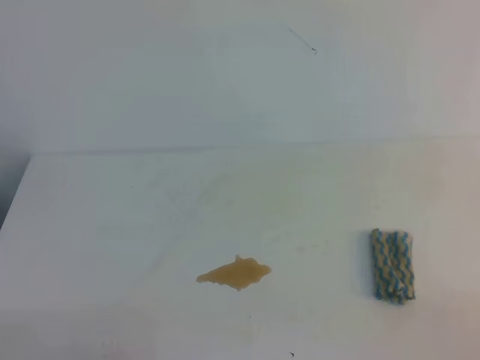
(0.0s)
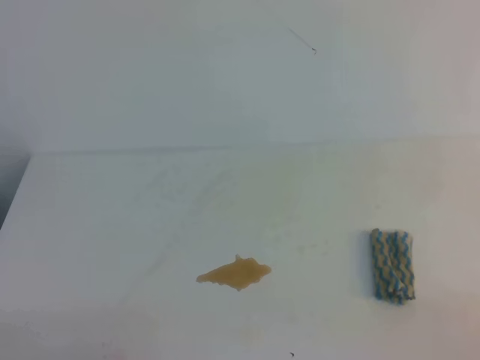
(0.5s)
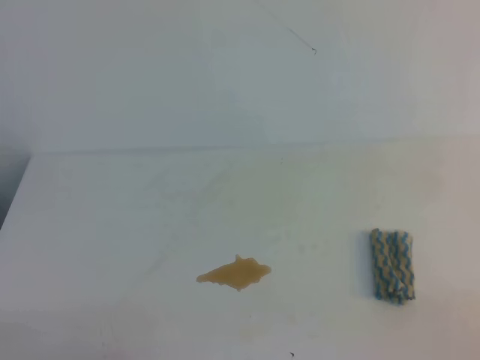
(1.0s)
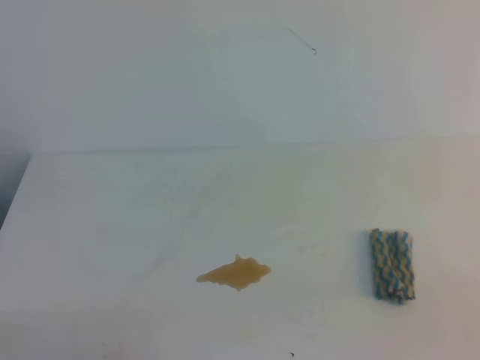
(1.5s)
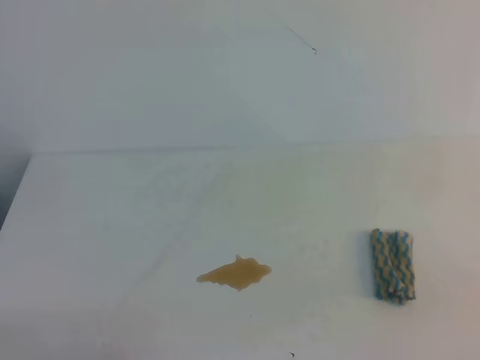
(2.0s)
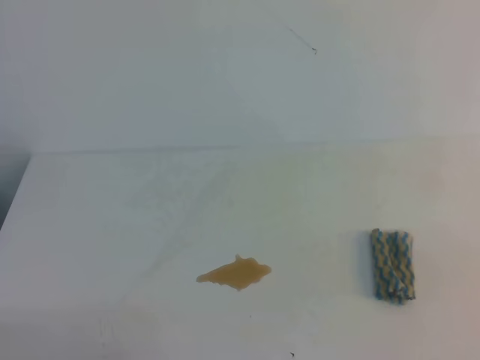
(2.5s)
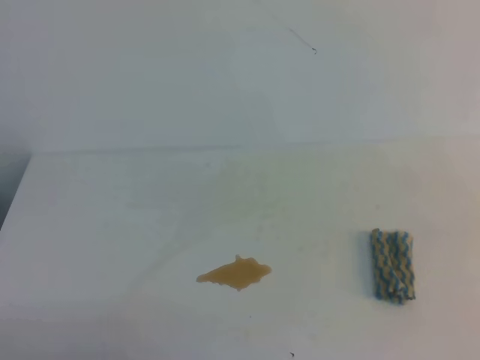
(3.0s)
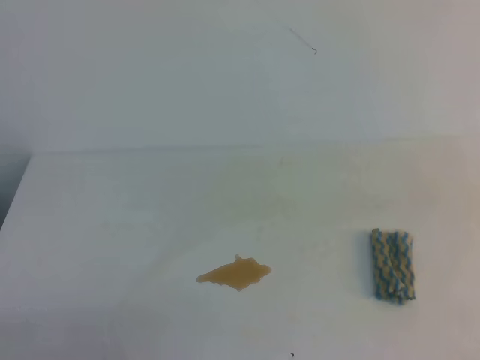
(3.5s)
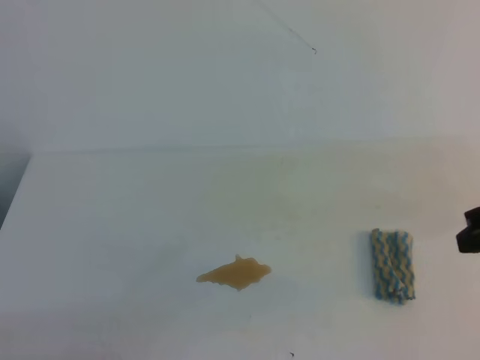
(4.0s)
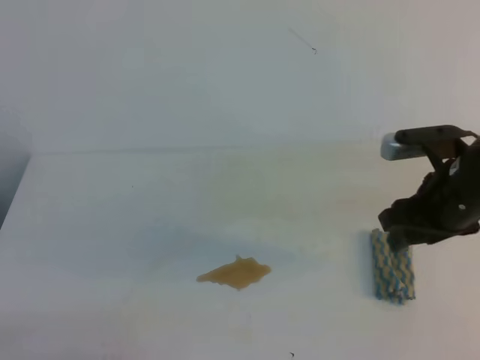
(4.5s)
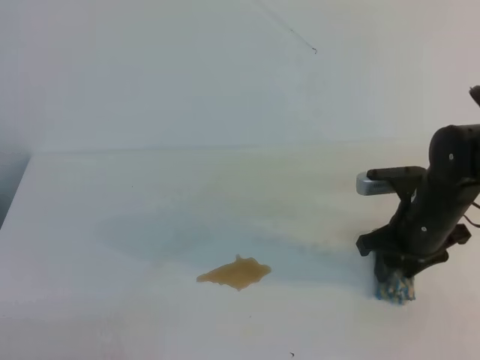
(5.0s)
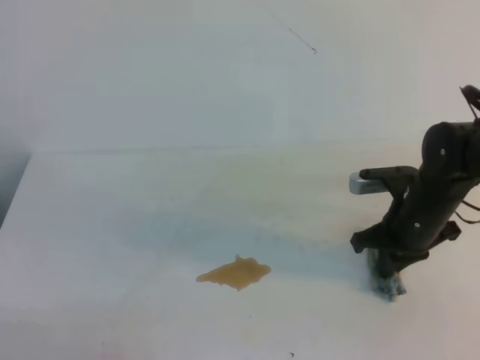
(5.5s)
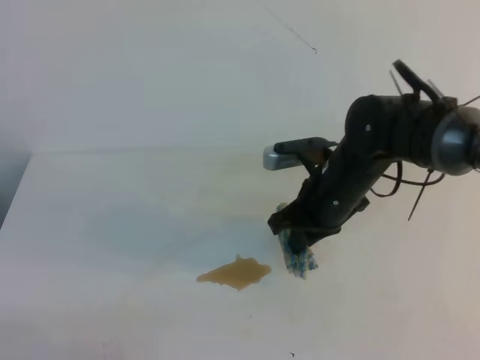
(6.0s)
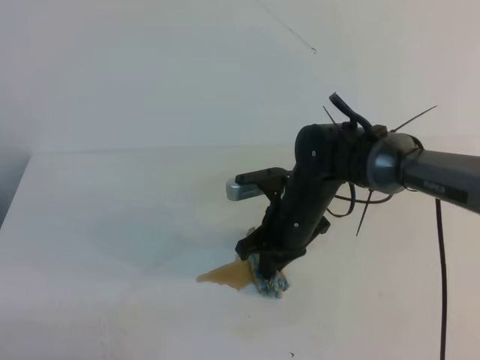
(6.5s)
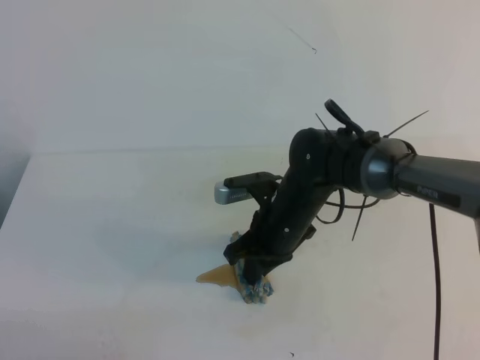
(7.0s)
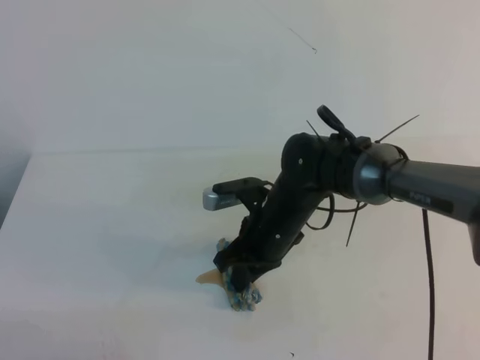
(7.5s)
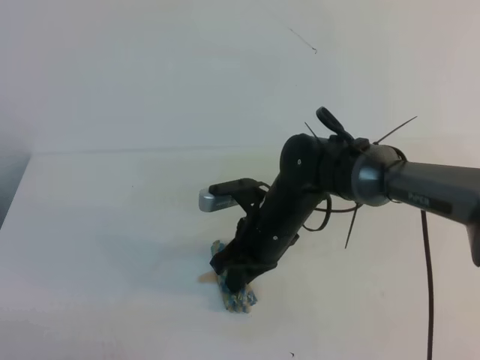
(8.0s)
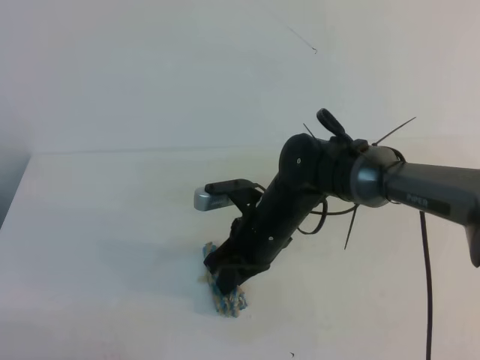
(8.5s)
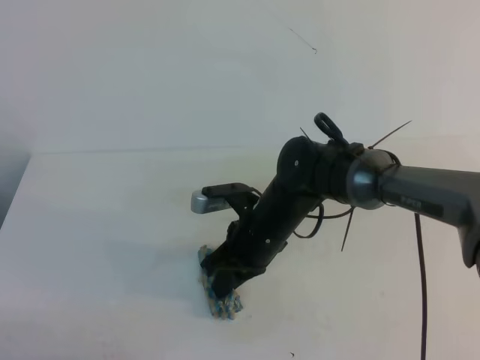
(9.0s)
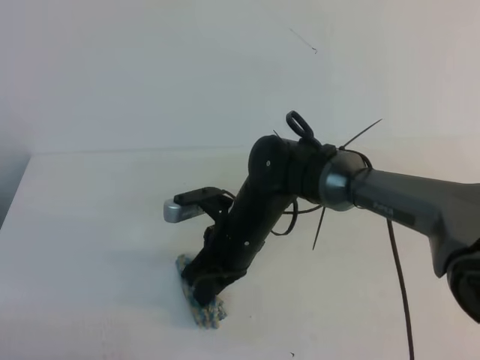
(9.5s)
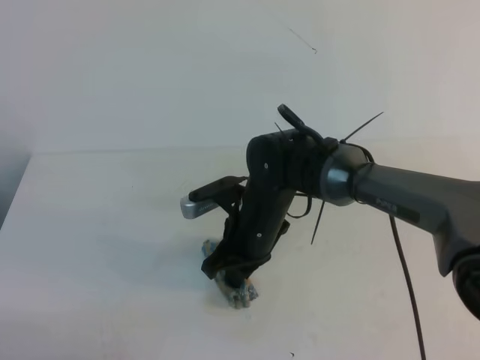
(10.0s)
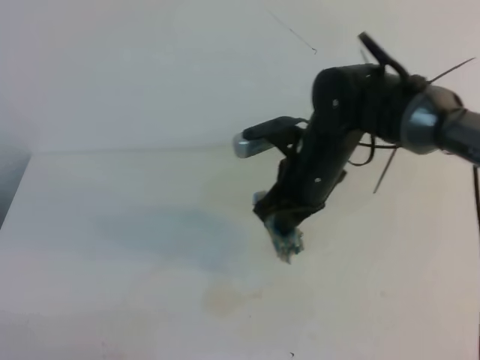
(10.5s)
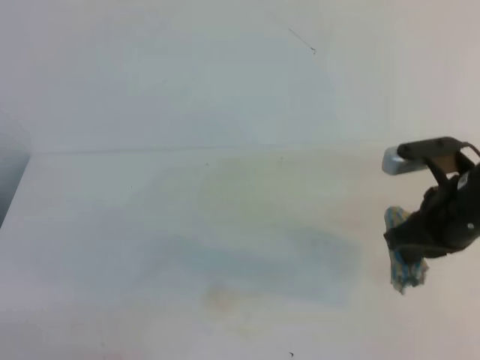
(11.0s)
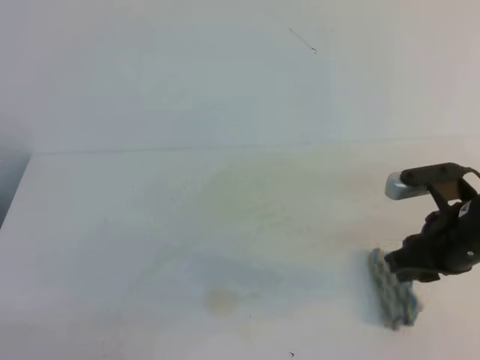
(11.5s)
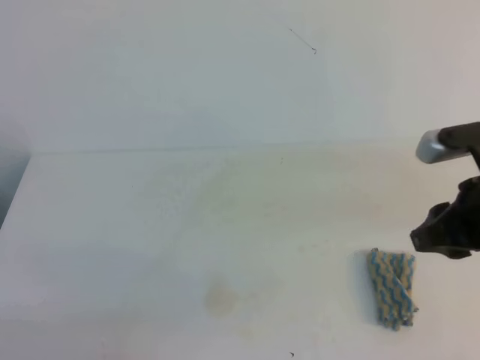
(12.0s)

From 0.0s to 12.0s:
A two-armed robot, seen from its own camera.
From 4.0s to 6.0s: The right gripper travels to the left, forward and downward by some 20 cm, and opens and closes again.
From 6.0s to 8.0s: The right gripper heads to the left, covering approximately 10 cm.
From 8.0s to 10.0s: The grippers move only a little.
From 10.0s to 12.0s: The right gripper moves to the right, upward and backward, about 25 cm, and opens up.
